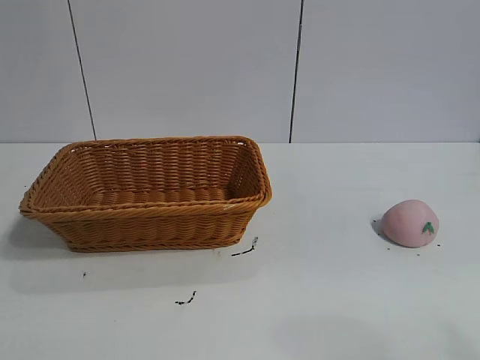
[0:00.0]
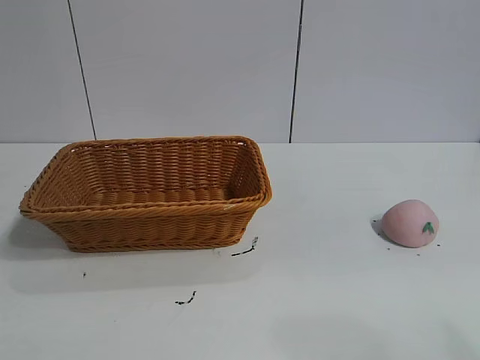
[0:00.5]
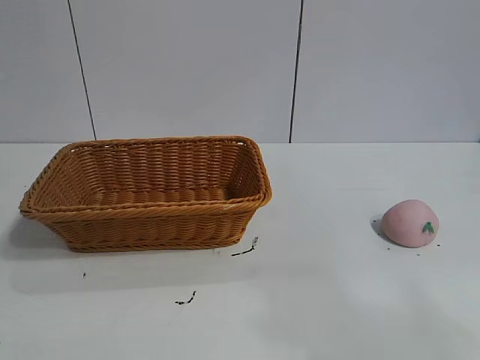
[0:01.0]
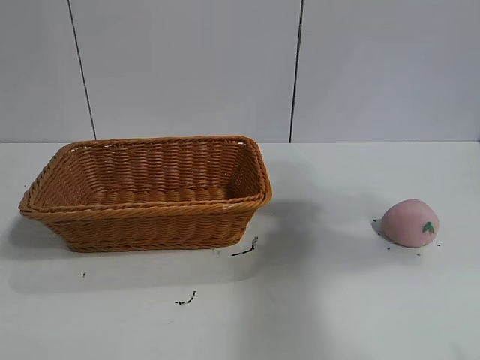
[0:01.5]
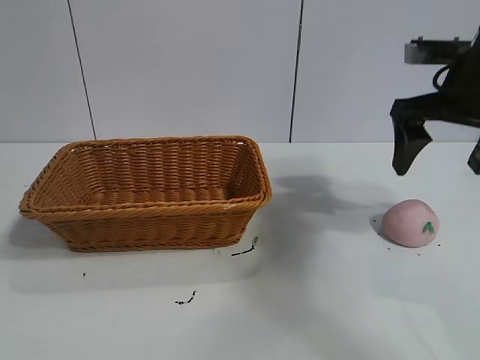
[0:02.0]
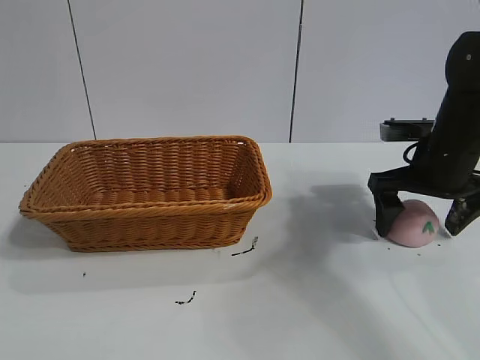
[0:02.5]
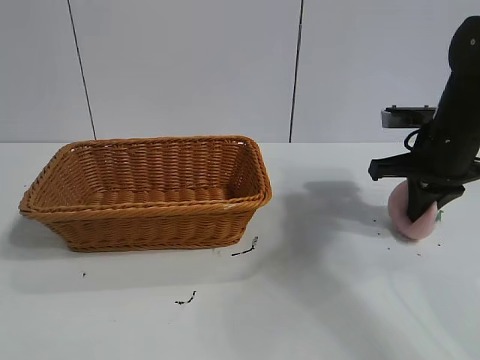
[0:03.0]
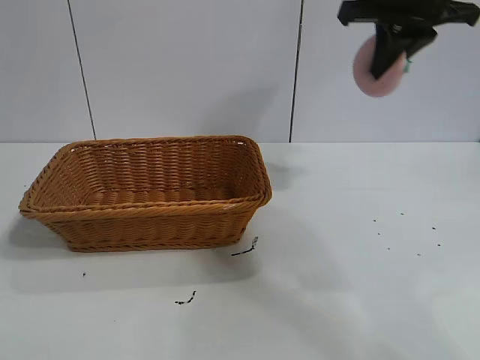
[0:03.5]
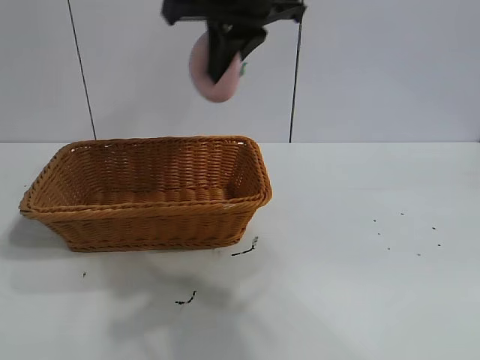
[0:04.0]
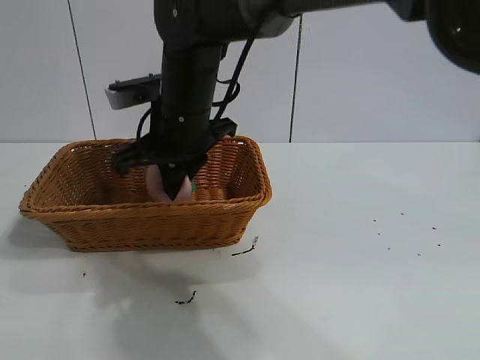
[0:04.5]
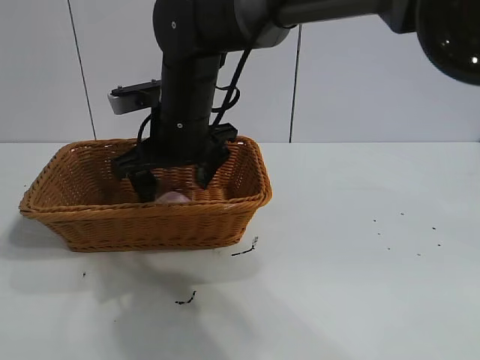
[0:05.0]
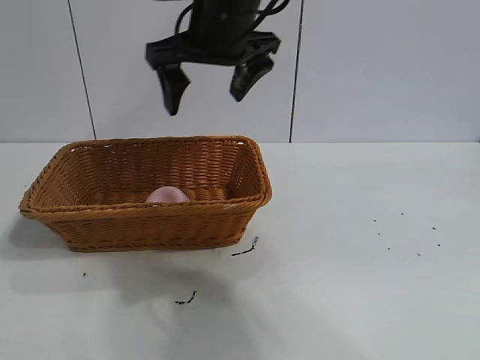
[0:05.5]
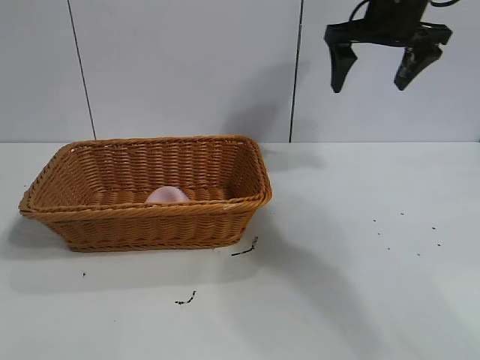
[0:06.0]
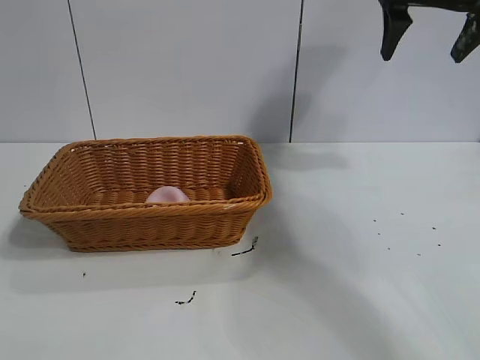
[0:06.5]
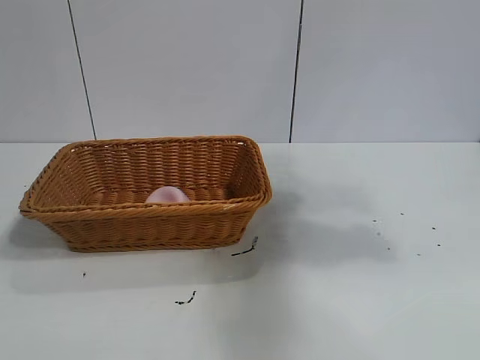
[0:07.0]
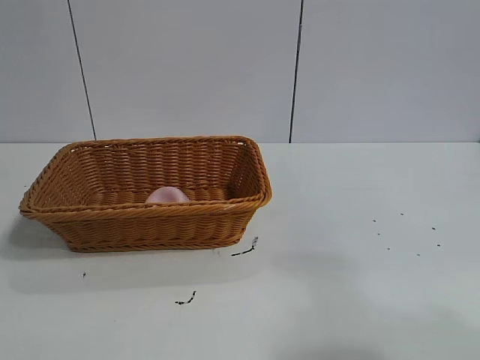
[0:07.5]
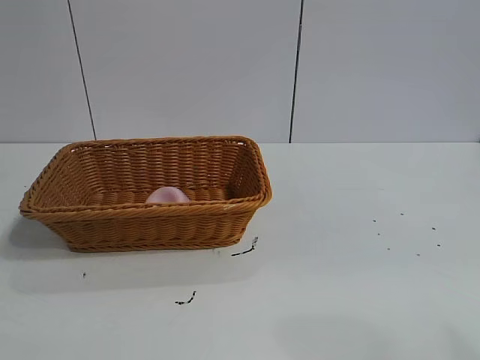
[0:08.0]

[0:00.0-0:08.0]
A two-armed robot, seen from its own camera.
Task of the whole recording: pick up the peach and put it into the basket.
Step, 0:01.0 to 0:02.5: Grasp the peach with right gripper.
Step, 0:03.0 to 0:05.0: Place the peach in the basket with right gripper.

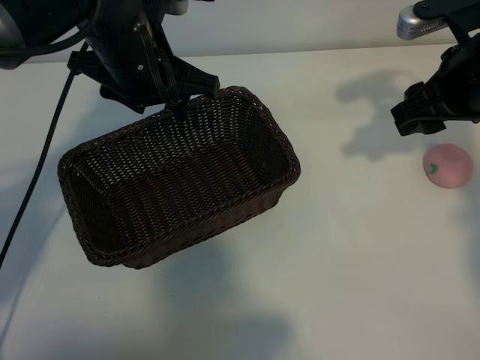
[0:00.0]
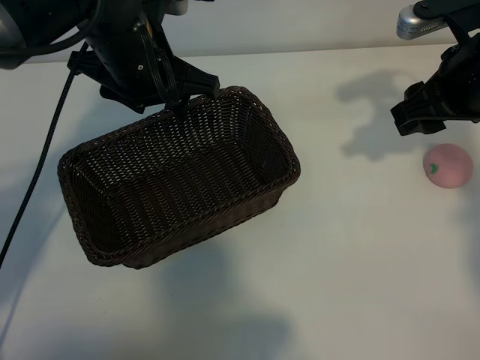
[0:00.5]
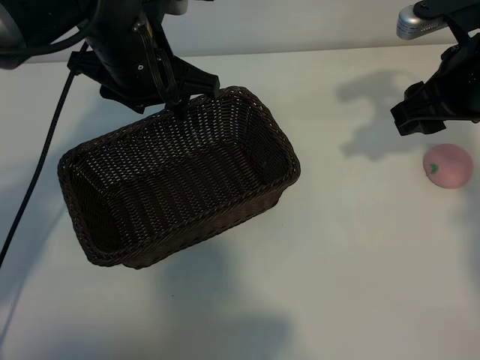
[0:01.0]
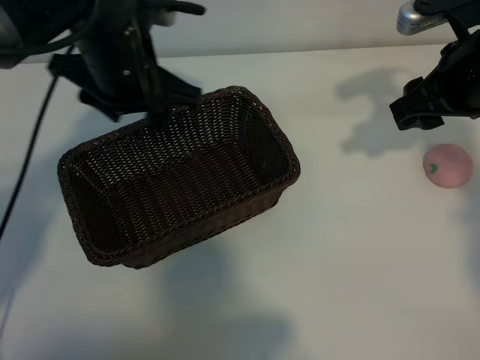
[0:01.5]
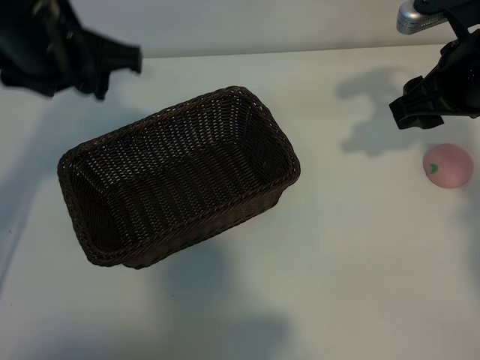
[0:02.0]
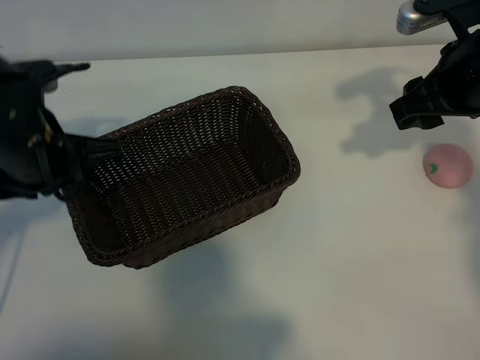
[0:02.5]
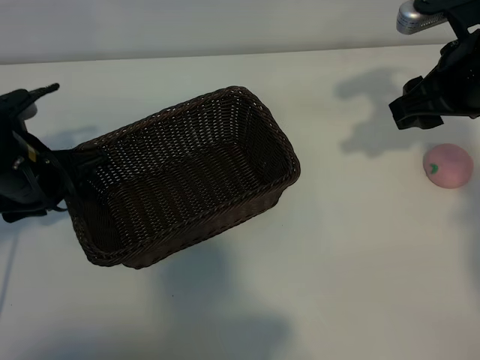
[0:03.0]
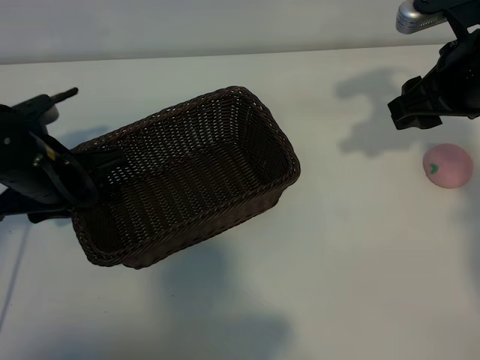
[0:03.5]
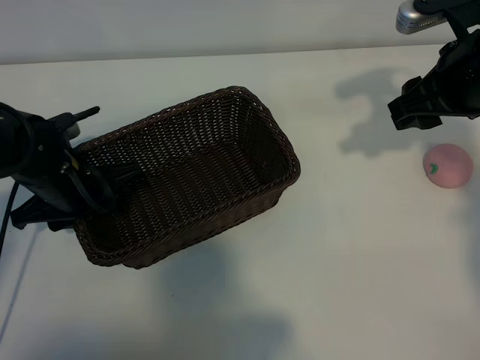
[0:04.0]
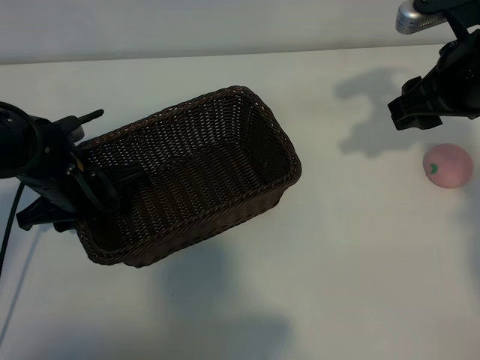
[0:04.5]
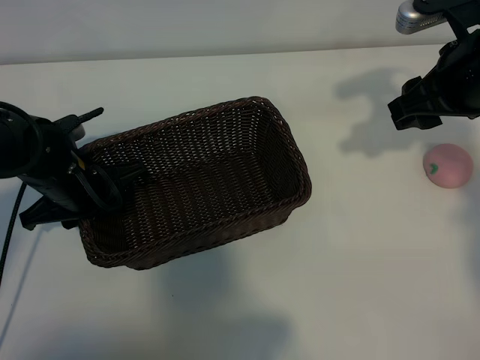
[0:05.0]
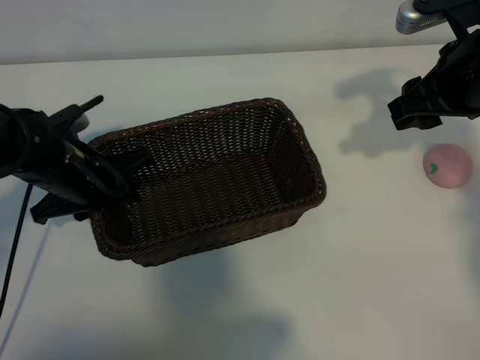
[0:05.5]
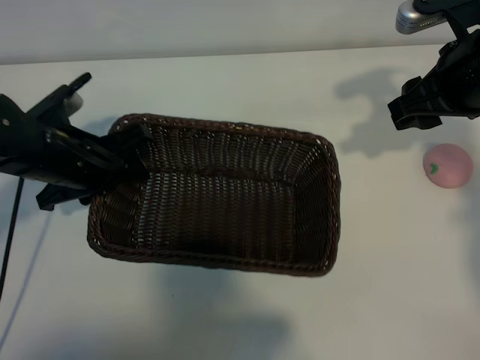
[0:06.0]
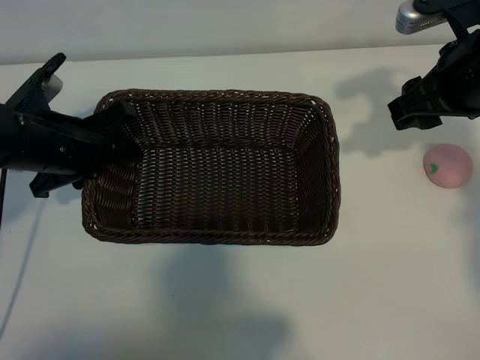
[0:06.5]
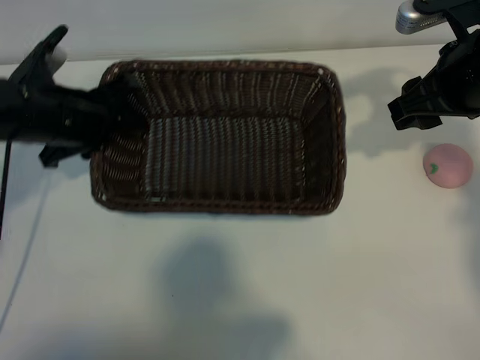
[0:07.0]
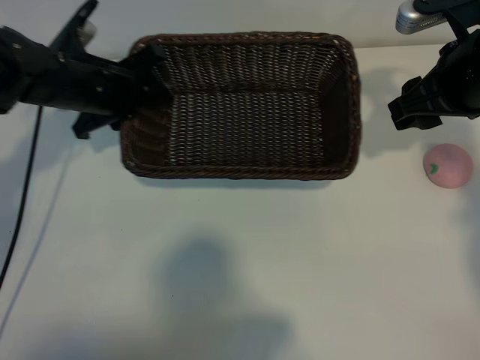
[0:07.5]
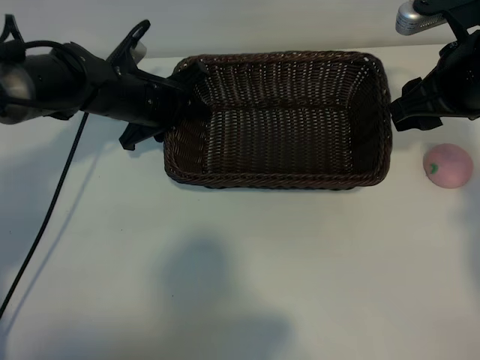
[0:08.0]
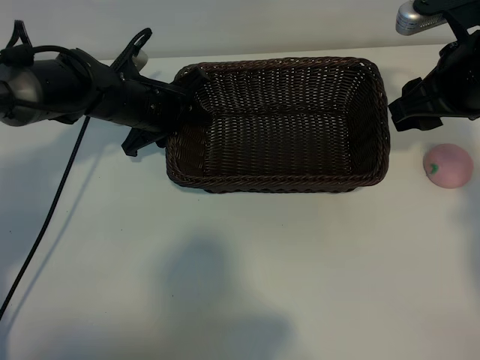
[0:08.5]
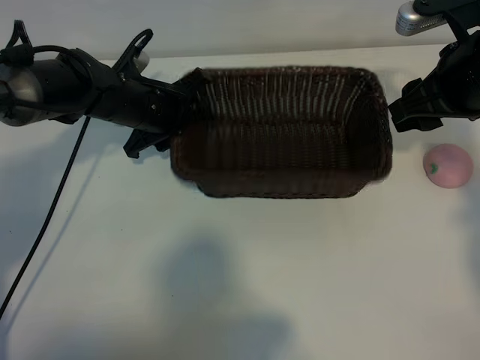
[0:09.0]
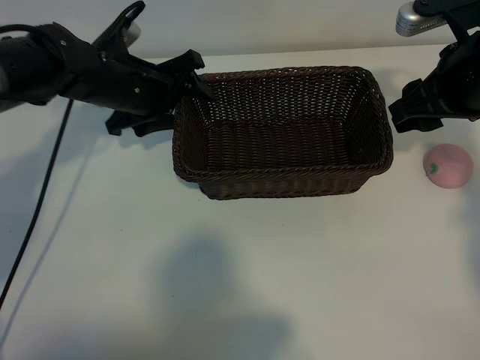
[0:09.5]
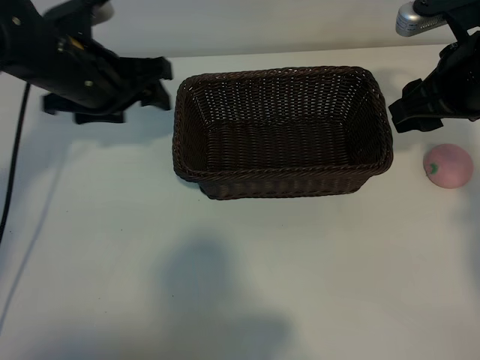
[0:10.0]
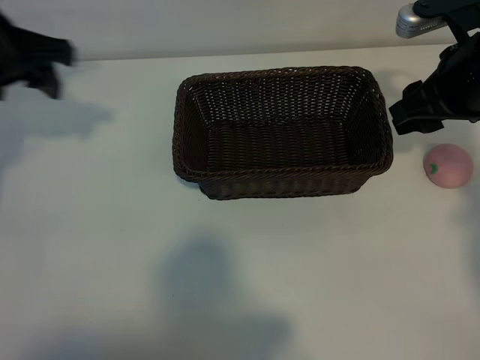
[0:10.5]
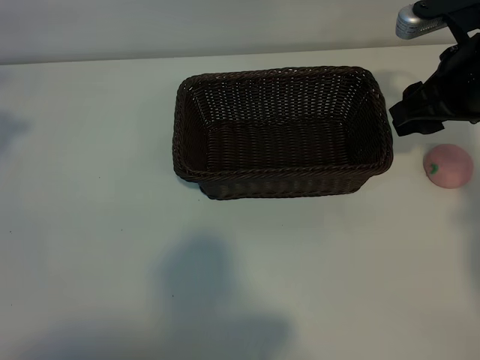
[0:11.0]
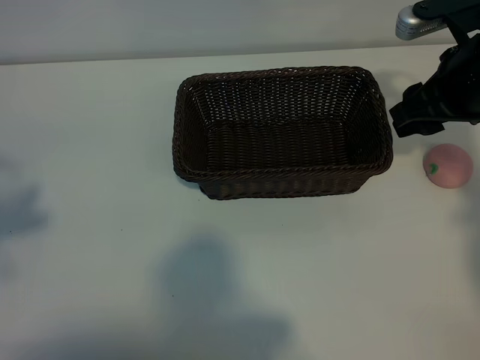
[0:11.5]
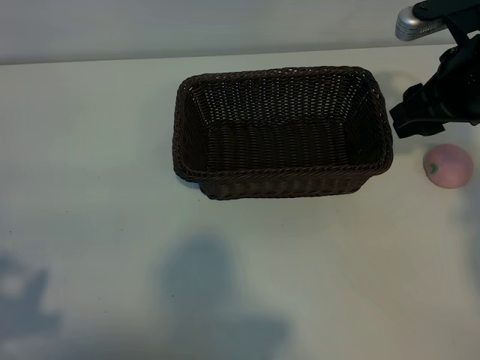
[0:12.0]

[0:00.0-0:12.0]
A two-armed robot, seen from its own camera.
Task of the whole recording: pick up the peach and put it into the basket.
Step, 0:01.5 to 0:05.0: Grasp the basket with left gripper.
Step, 0:05.5 to 0:09.0: Place the basket in the center of view with left gripper.

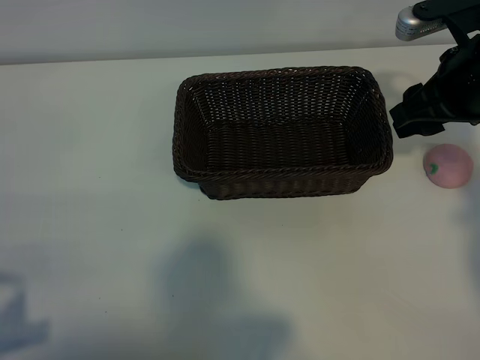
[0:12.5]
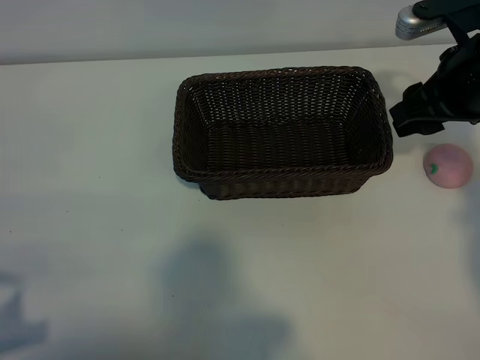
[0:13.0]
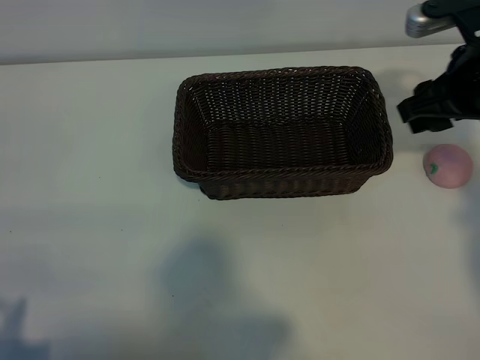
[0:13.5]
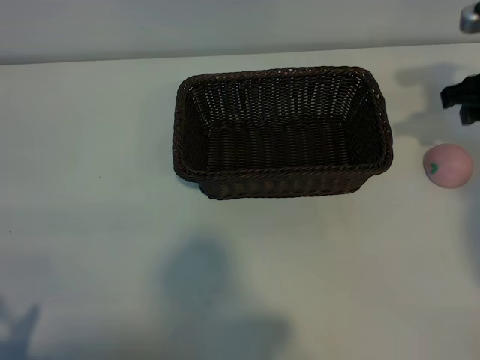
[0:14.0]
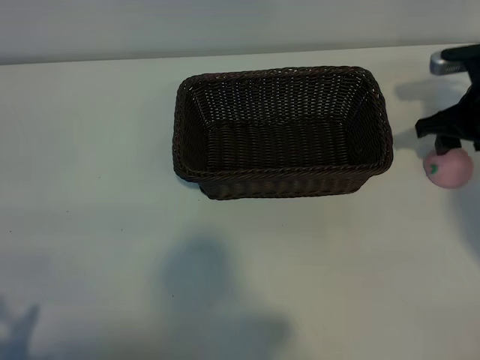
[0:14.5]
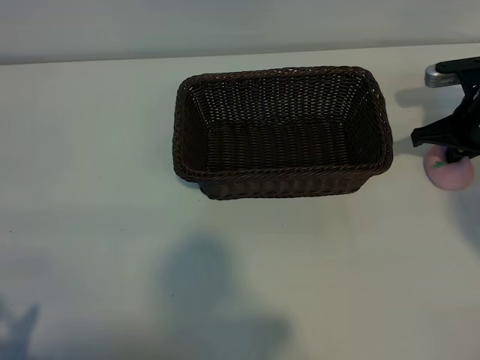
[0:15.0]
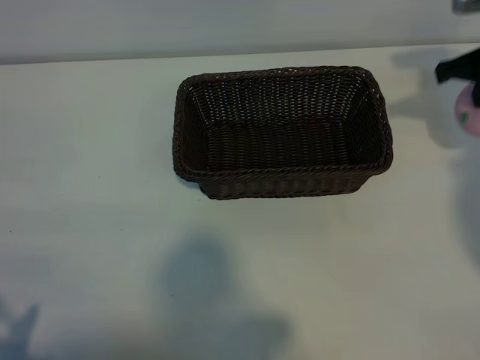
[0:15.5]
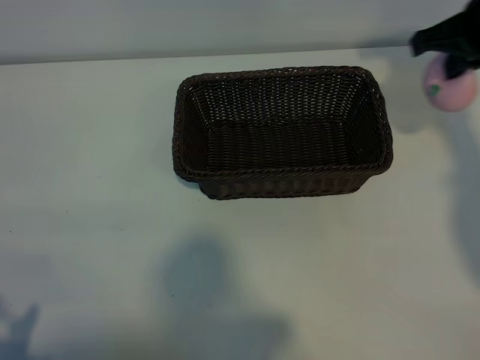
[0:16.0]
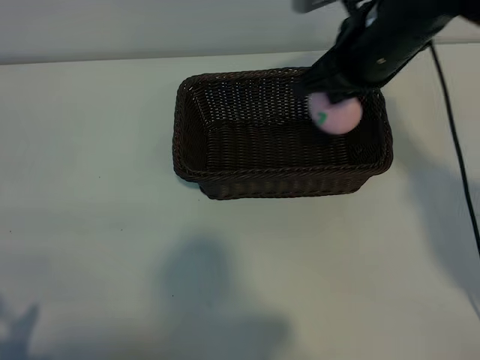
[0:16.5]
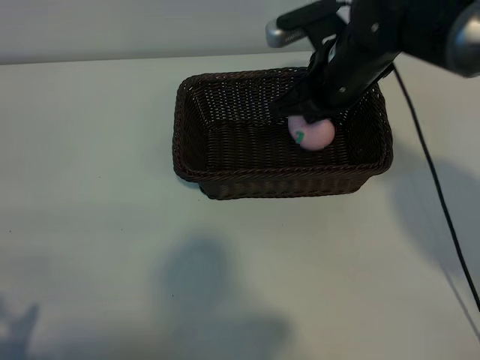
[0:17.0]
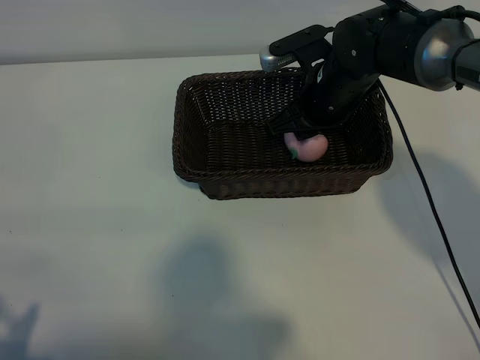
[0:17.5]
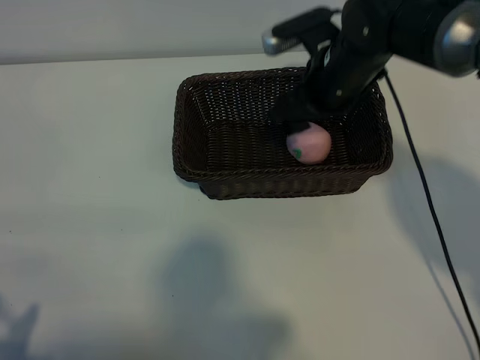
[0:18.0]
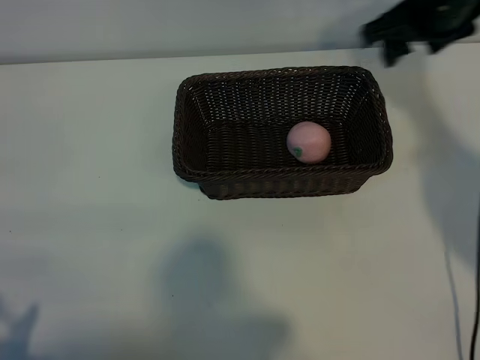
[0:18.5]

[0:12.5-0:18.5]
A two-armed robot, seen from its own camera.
Task of the whole recording: pick up the peach and put it into the basket.
Step, 0:12.5 to 0:15.0: Grasp the peach with right gripper.
Step, 0:15.5 to 0:17.5: Place the peach in the basket with right gripper.
